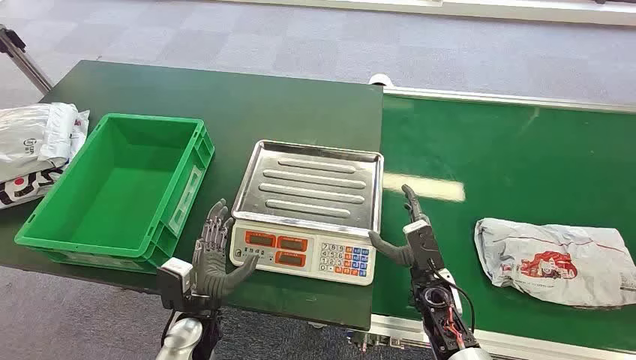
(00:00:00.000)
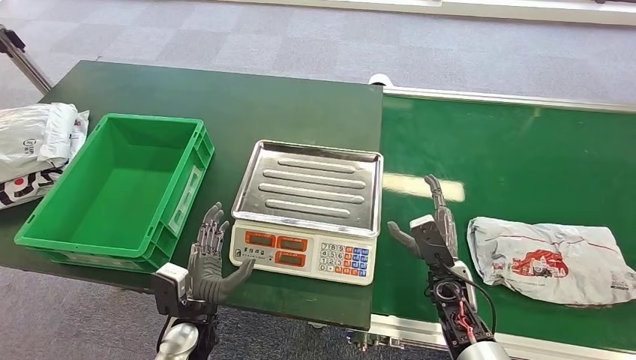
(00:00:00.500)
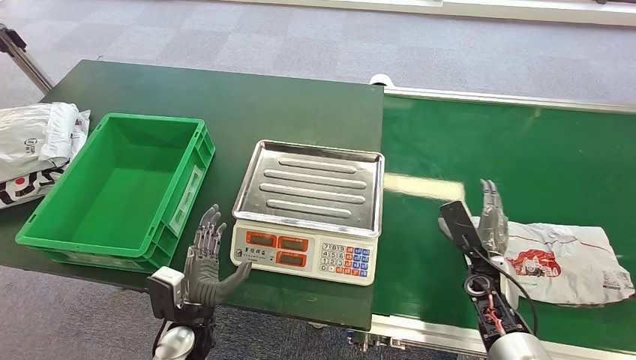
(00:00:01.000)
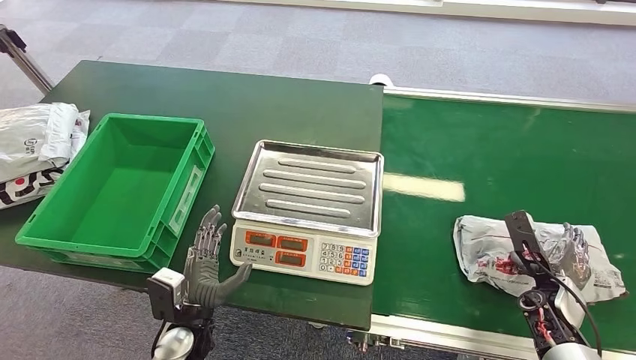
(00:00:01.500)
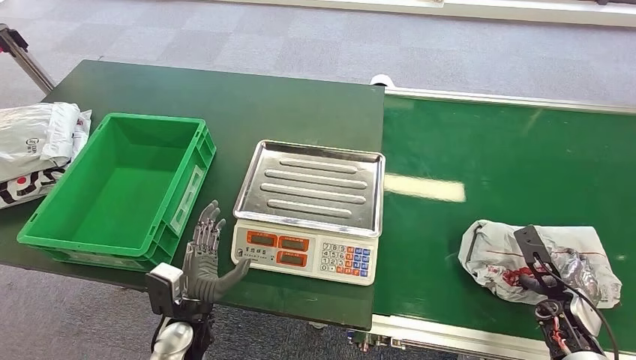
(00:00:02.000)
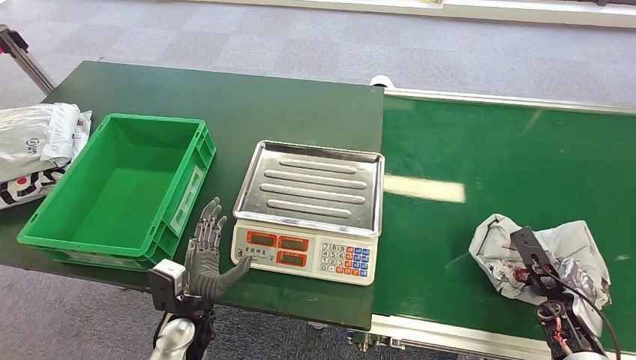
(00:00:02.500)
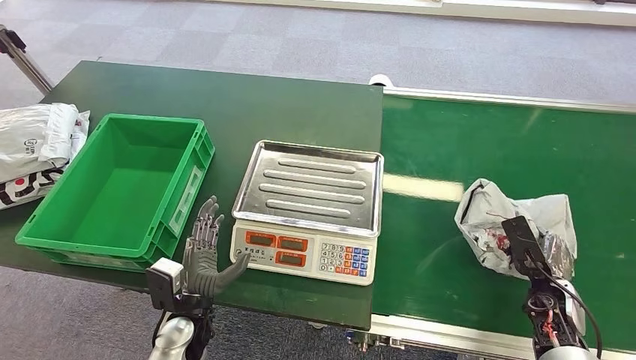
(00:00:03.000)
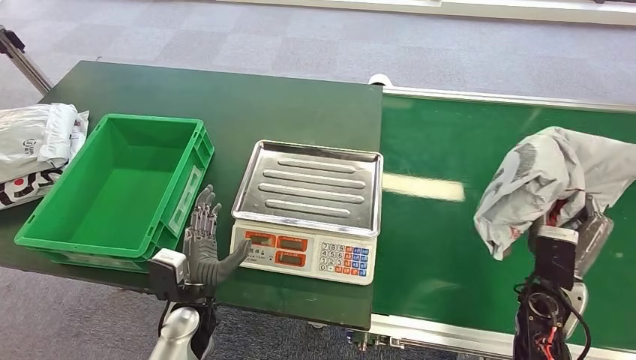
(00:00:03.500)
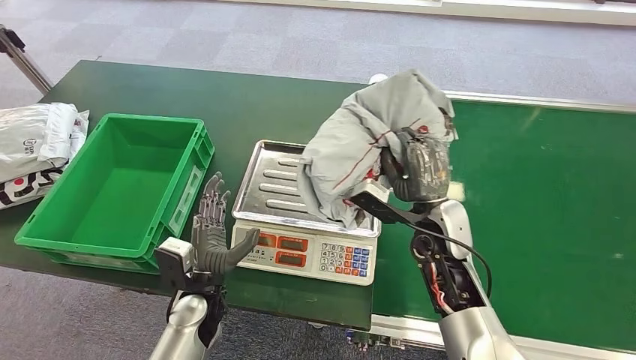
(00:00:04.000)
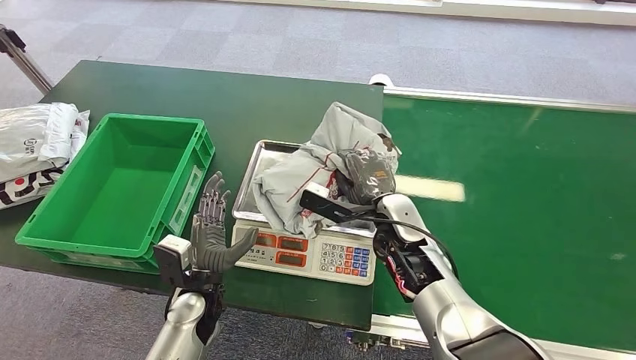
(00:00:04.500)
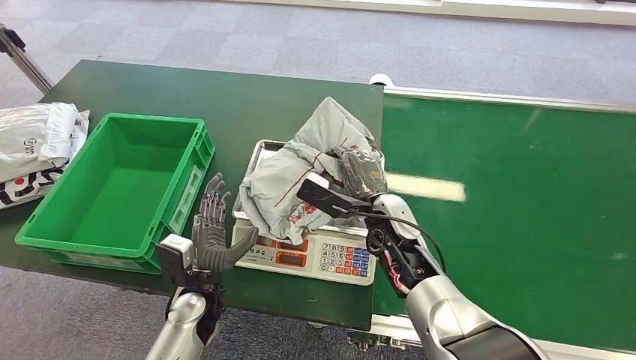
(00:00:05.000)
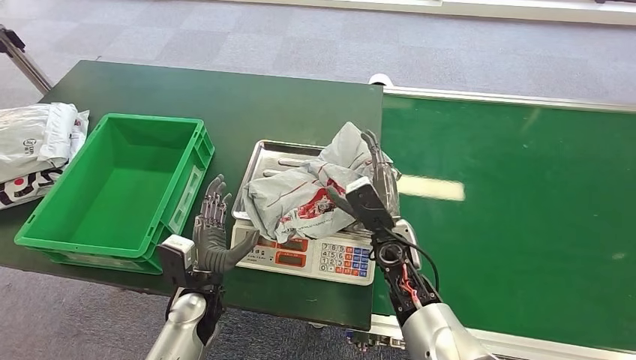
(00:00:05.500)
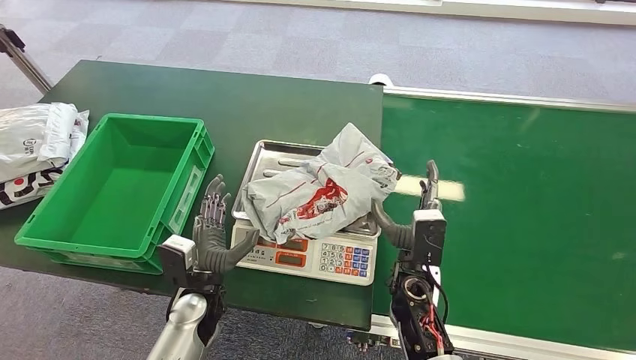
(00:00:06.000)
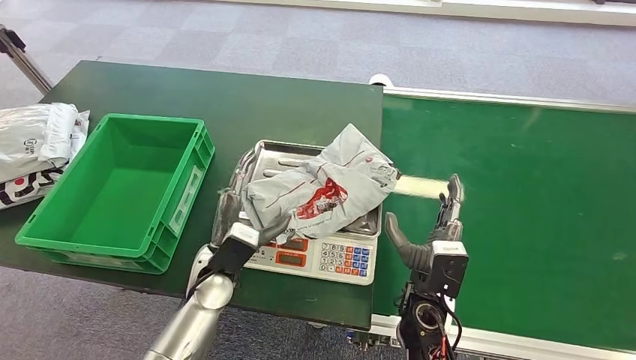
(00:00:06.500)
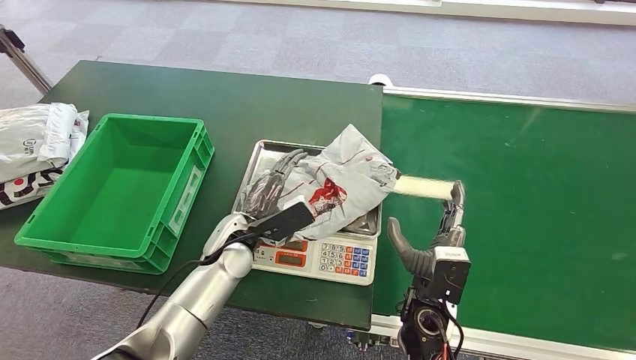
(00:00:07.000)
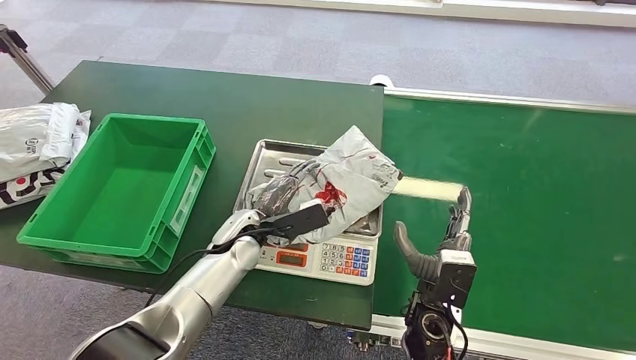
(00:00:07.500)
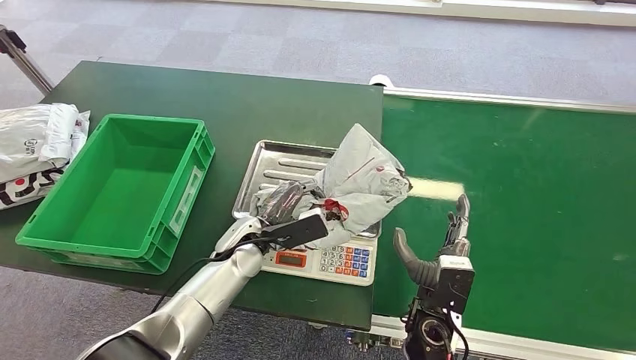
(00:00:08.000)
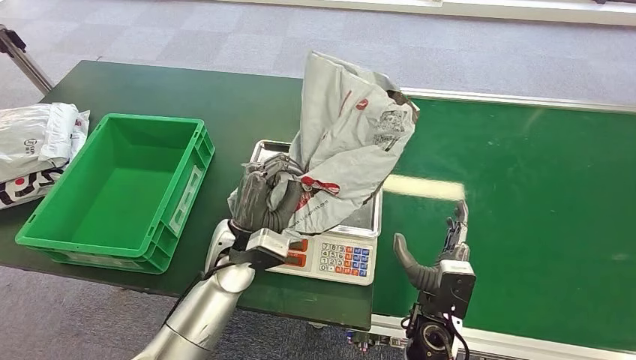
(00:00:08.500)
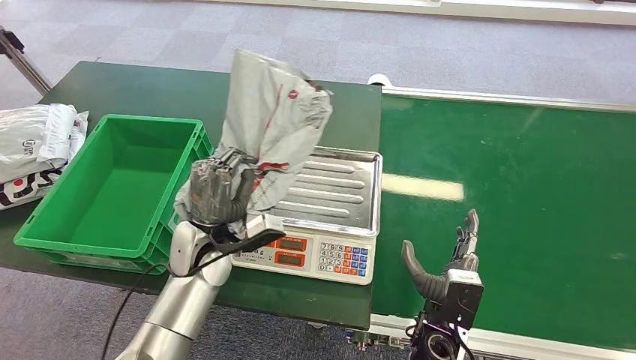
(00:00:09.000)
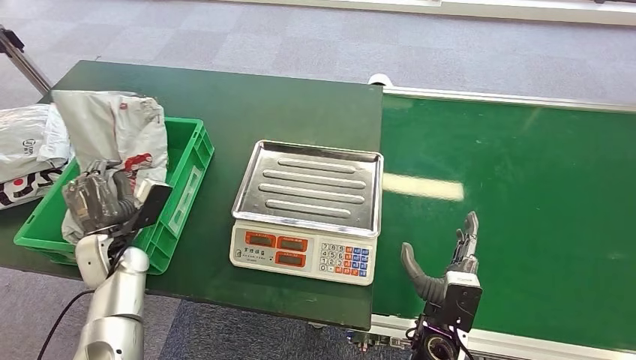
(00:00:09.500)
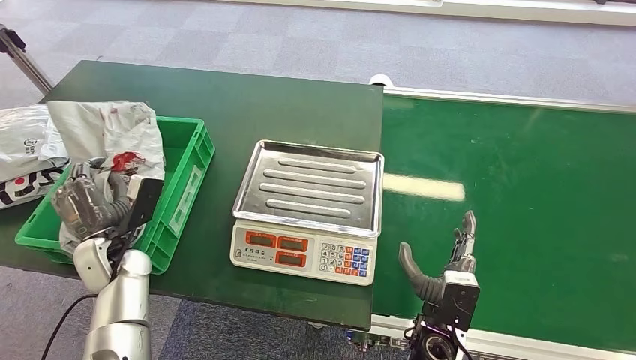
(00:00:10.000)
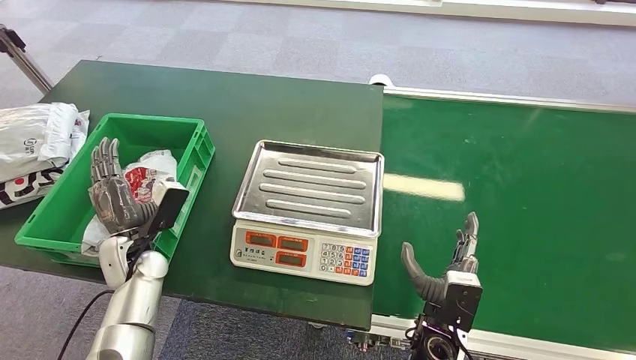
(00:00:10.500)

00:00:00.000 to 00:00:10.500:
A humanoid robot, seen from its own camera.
Step, 00:00:00.000 to 00:00:03.500: Pick up the package from the conveyor belt.
Step, 00:00:04.000 to 00:00:06.500: Place the package onto the inbound machine.
Step, 00:00:07.000 to 00:00:09.000: Pick up the package from the inbound machine.
Step, 00:00:09.500 to 00:00:10.500: Place the package into the parcel locker.
00:00:04.000 to 00:00:06.500: The left hand changes place by roughly 5 cm, while the right hand is displaced backward and downward by some 15 cm.
00:00:06.500 to 00:00:08.500: The left hand heads upward, covering approximately 5 cm.
00:00:08.500 to 00:00:10.500: The left hand travels to the left by some 20 cm.
